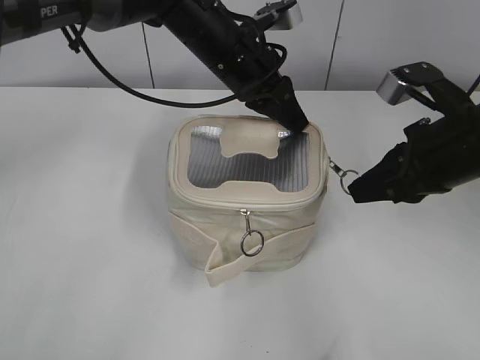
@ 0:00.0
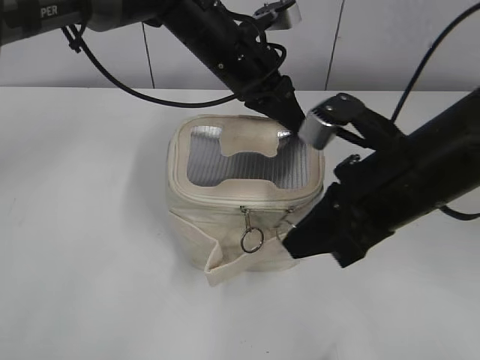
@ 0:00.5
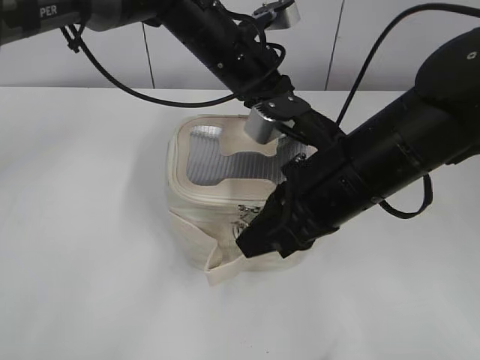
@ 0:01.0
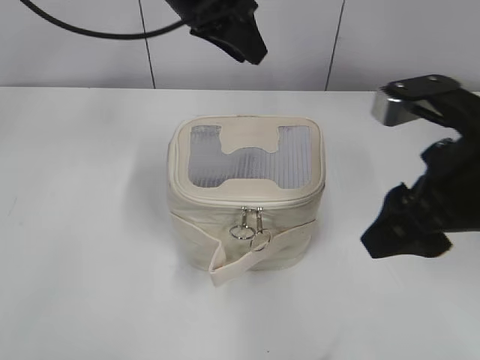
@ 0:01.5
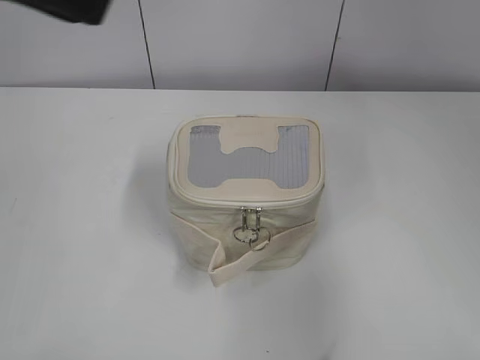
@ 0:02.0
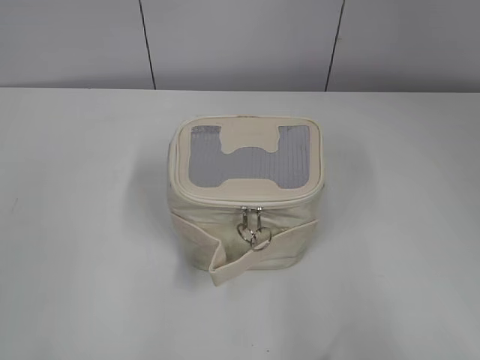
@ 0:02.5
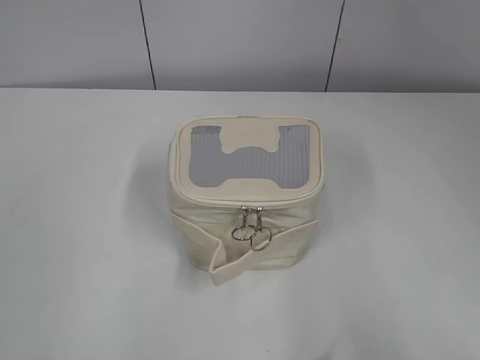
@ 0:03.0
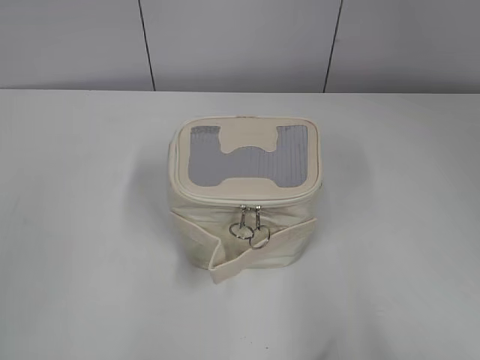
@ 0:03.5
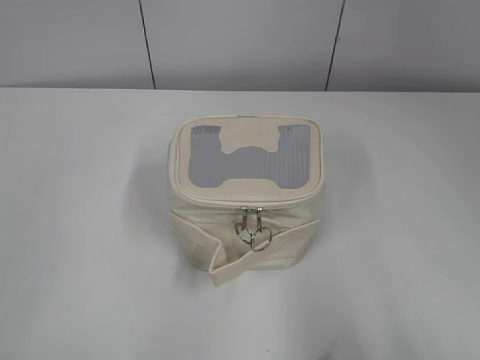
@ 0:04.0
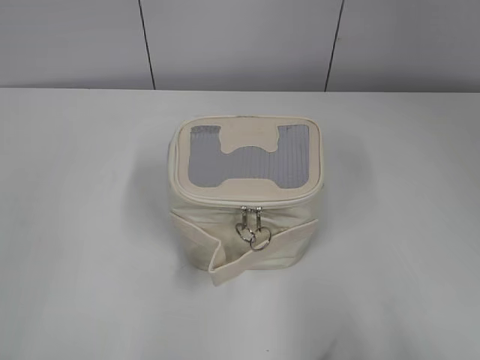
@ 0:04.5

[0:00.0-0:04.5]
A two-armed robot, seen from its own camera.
0:00.0 to 0:02.0: The right gripper shifts some 20 cm backward and upward, and opens its fingers. The left gripper travels backward, upward and to the left by roughly 30 cm.
0:02.0 to 0:04.5: The right gripper goes roughly 15 cm backward and to the right. Meanwhile the left gripper shifts some 30 cm backward, to the left and downward.

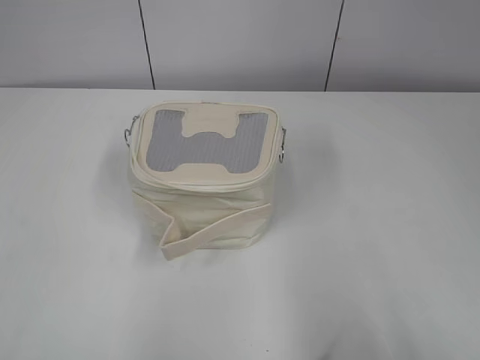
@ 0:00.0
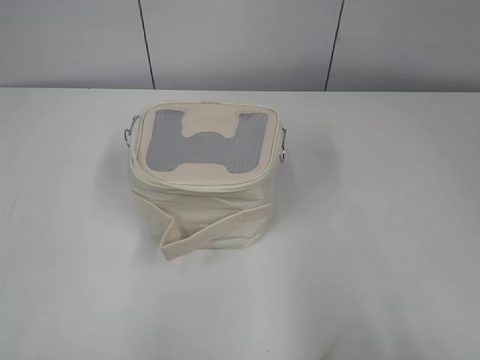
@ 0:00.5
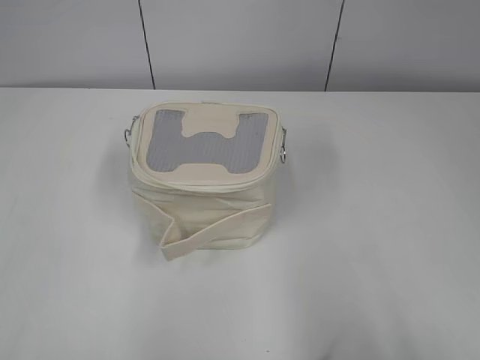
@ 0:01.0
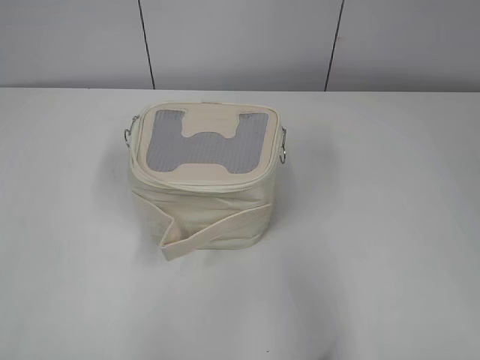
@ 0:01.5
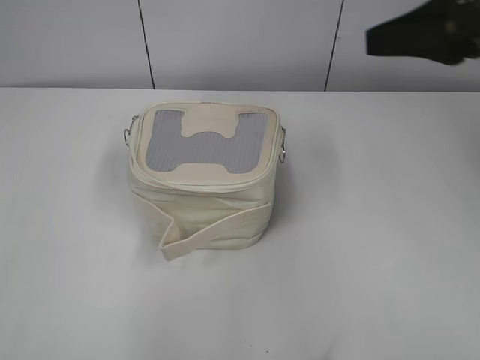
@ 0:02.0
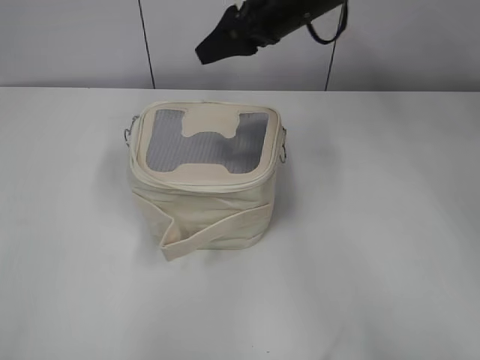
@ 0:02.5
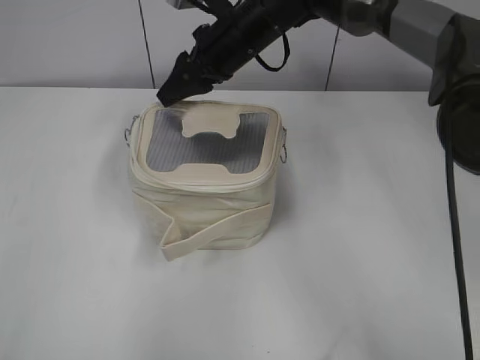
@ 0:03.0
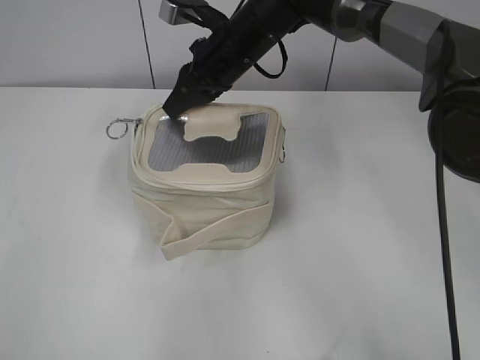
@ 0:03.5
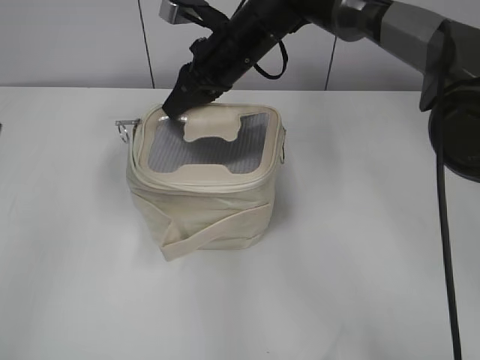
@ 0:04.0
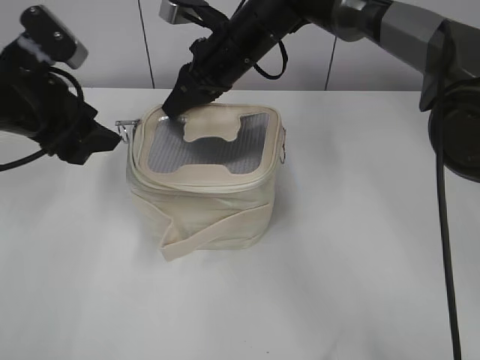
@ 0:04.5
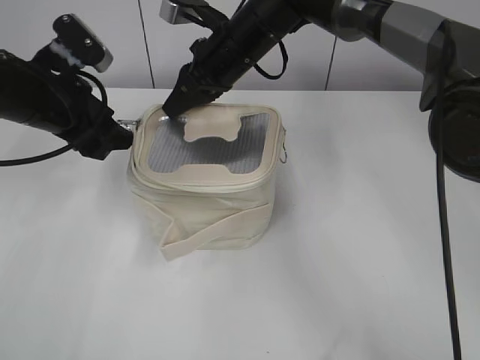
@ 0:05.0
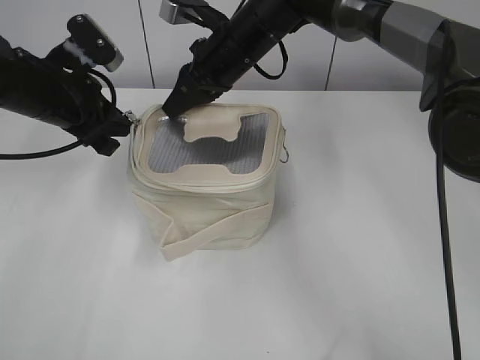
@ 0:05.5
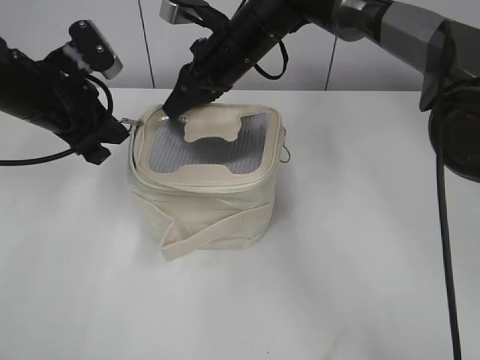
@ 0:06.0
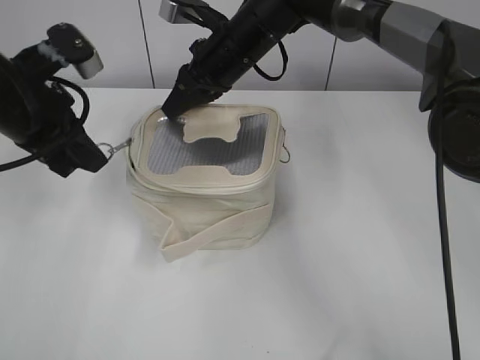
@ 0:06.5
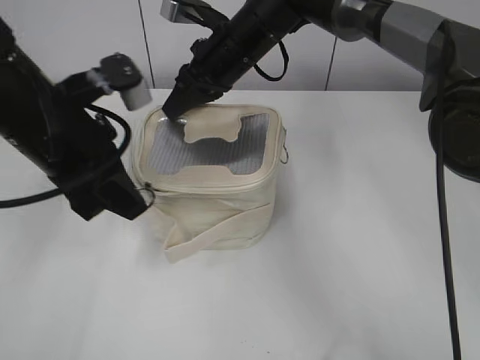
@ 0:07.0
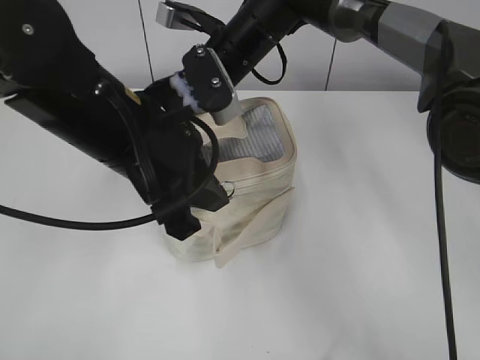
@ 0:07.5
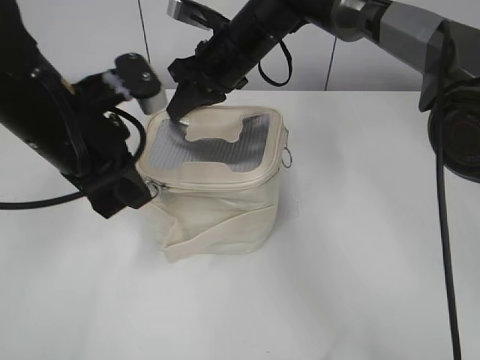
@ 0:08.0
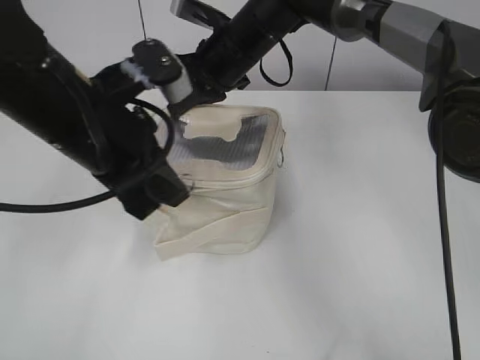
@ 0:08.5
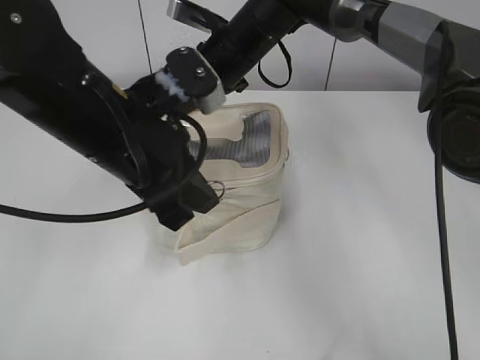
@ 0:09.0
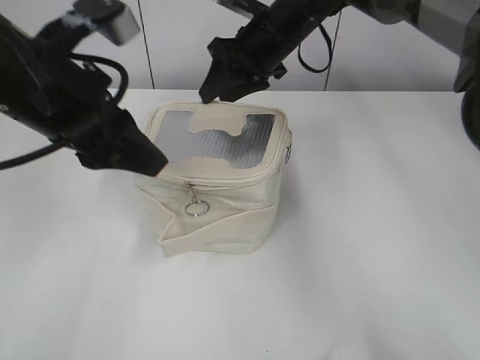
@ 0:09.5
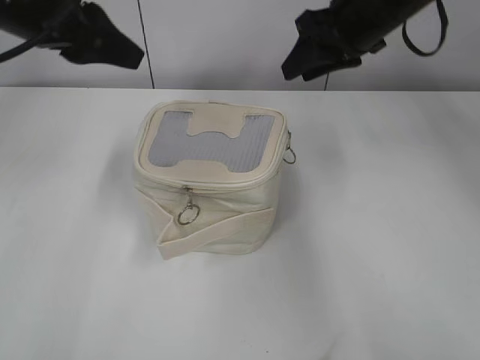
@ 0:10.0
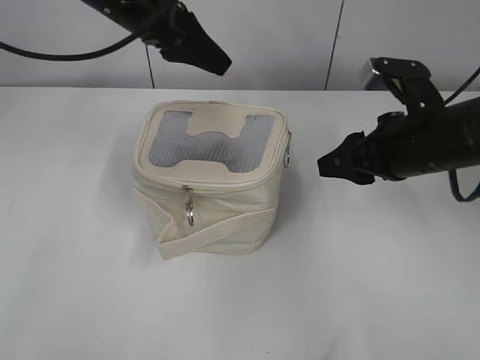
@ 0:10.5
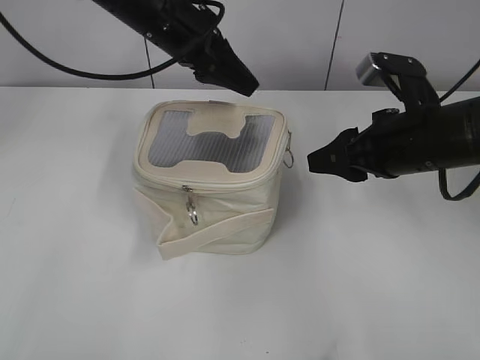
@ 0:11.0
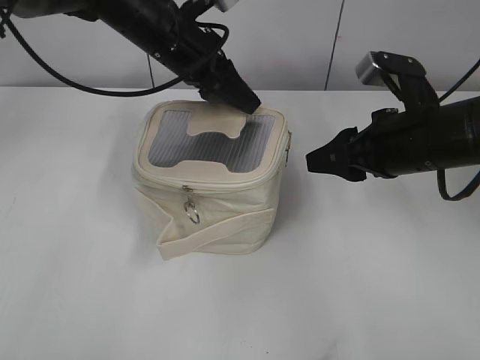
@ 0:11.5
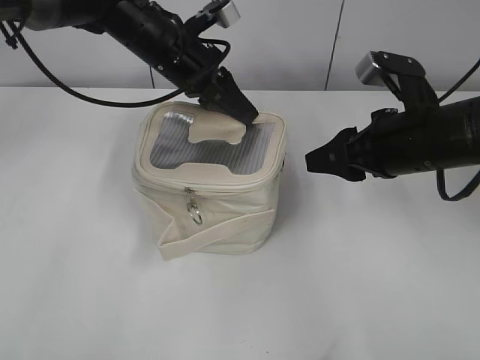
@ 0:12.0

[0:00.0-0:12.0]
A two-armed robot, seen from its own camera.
Step, 0:00.0 to 0:09.0: Zip up the bag with your left hand.
0:02.0 to 0:04.0: The right gripper goes roughly 30 cm to the left, forward and downward, and closes its fingers. Meanwhile the left gripper goes some 20 cm forward, and opens.
0:04.0 to 0:06.0: The left gripper goes some 20 cm forward, to the right and downward, and closes its fingers.
0:06.0 to 0:08.0: The left gripper is displaced backward and to the right by approximately 10 cm.
0:08.0 to 0:10.0: The left gripper heads upward and forward, covering roughly 10 cm, and opens up. Meanwhile the right gripper is displaced to the right and upward by some 15 cm, and opens up.
0:10.0 to 0:12.0: The left gripper moves to the right, forward and downward, about 20 cm, and closes its fingers. The right gripper heads backward and downward, covering approximately 15 cm.

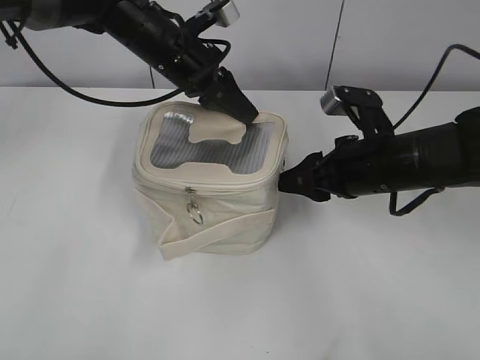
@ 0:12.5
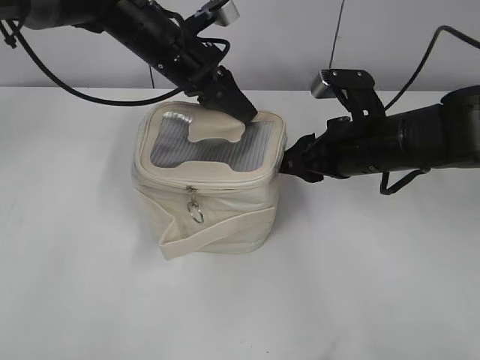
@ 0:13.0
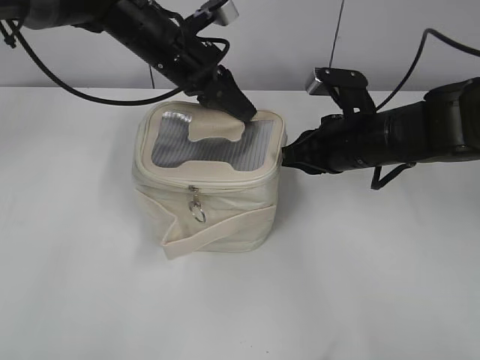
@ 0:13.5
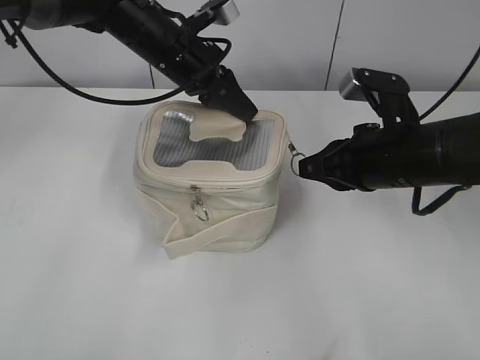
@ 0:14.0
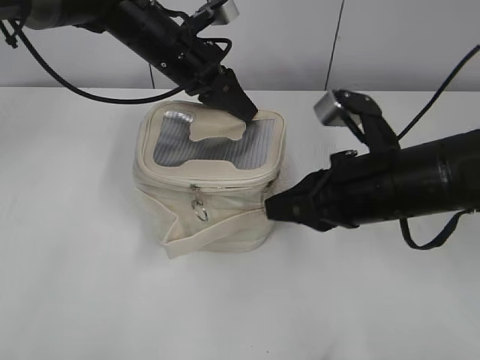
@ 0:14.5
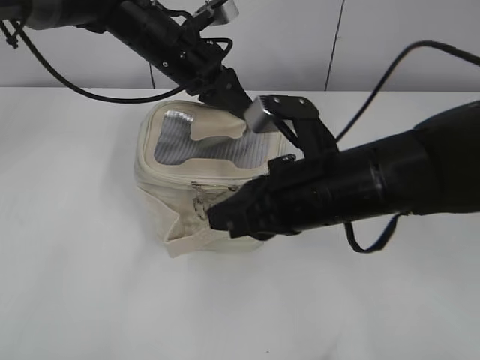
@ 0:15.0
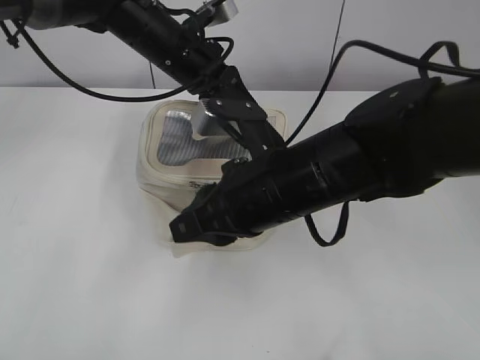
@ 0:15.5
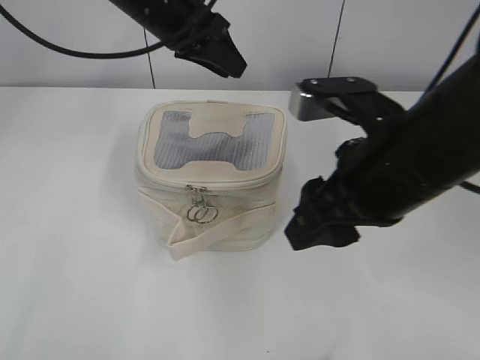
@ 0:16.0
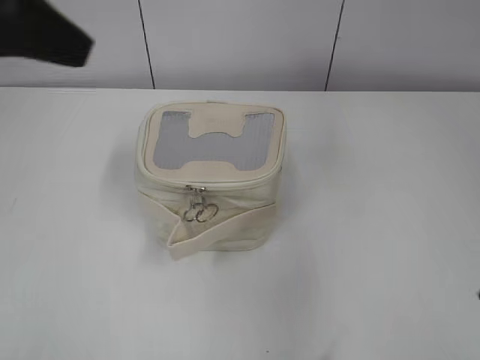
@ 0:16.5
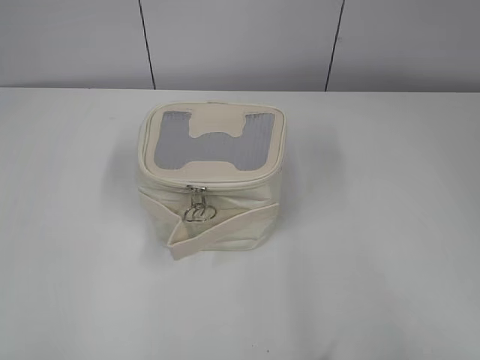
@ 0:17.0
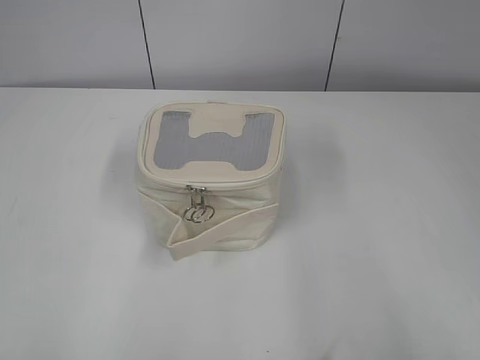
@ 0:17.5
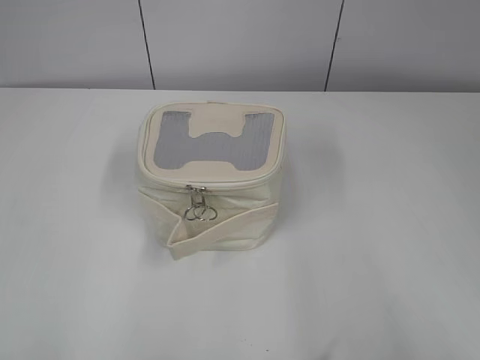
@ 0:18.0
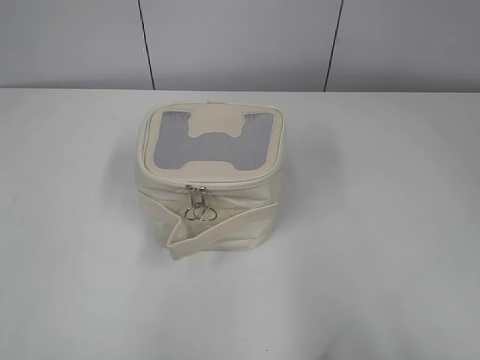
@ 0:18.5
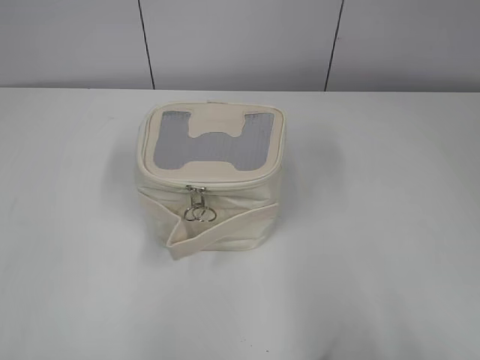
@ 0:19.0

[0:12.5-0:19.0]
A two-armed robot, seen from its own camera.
Step, 0:12.5 to 0:15.5: Zip up the bag with your right hand.
0:12.5 to 0:14.5: The right gripper shifts approximately 5 cm backward, and closes up.
0:14.5 to 0:17.0: The right gripper travels backward, to the right and upward by some 30 cm, and opens. The left gripper shifts about 50 cm backward and to the left, and opens its fingers.

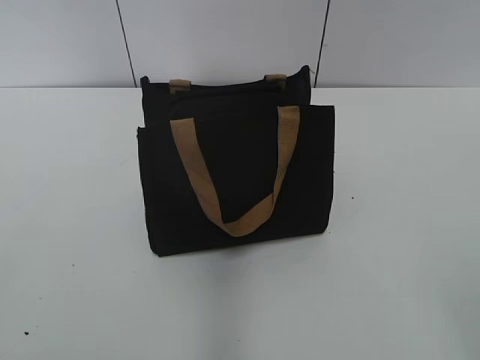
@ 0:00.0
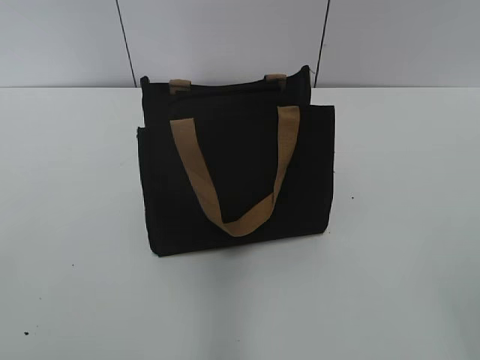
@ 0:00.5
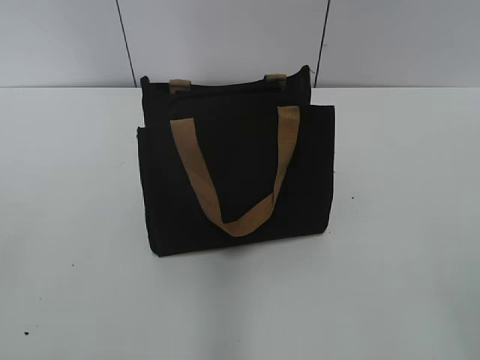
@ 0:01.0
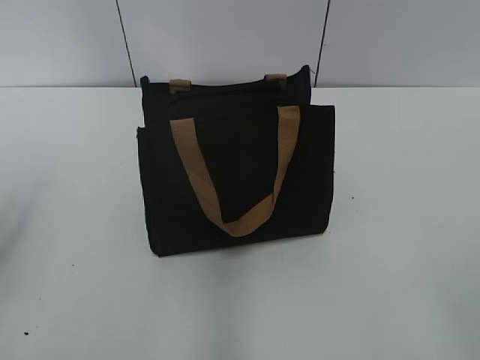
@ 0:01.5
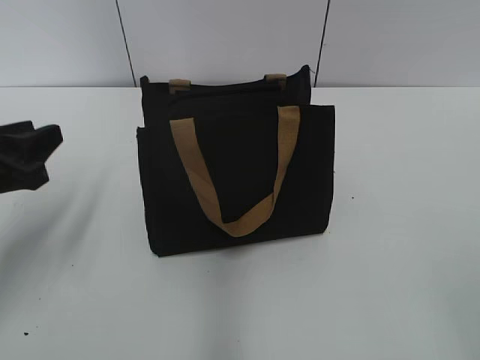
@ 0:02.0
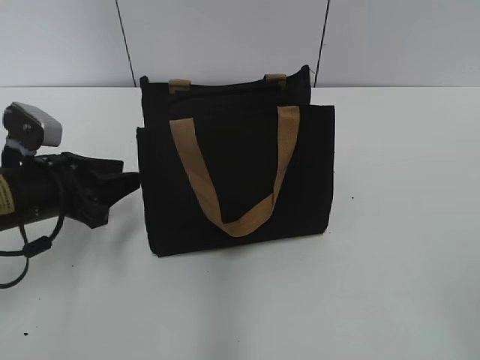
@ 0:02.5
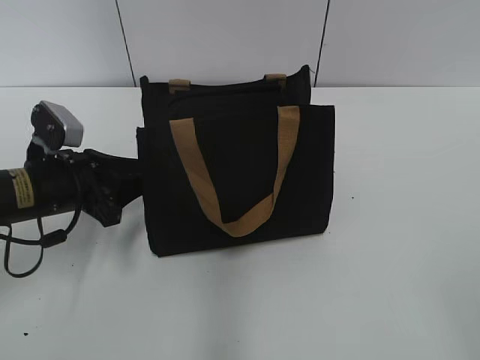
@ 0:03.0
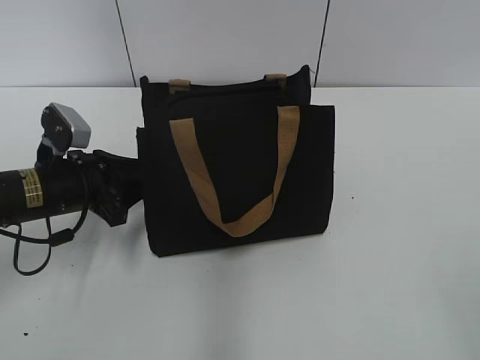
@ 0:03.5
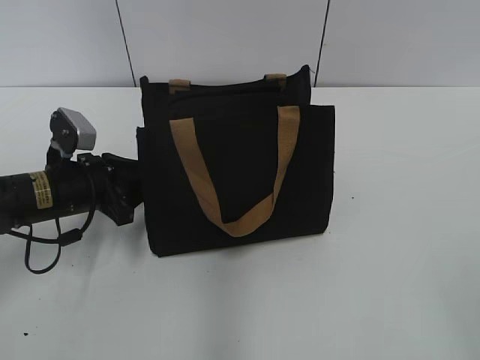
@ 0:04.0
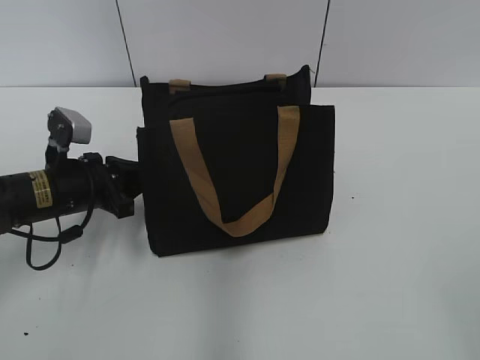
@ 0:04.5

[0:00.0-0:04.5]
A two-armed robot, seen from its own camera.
0:02.0 to 0:04.5: The left gripper is displaced downward, forward and to the right by some 15 cm, and closes up.
